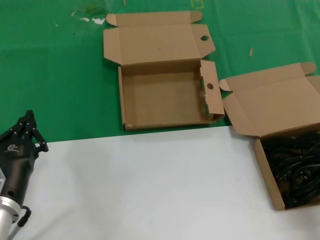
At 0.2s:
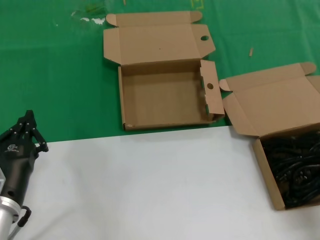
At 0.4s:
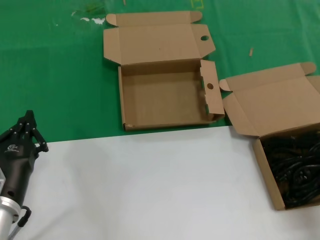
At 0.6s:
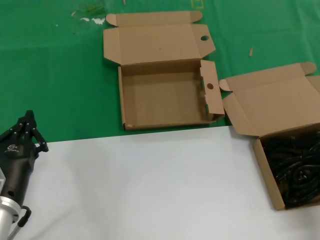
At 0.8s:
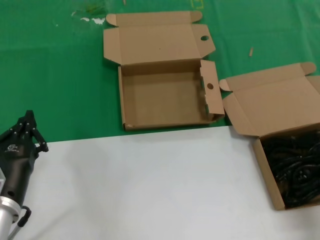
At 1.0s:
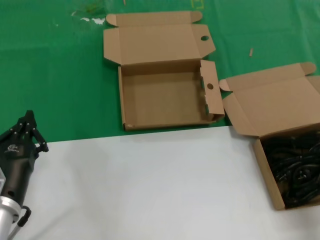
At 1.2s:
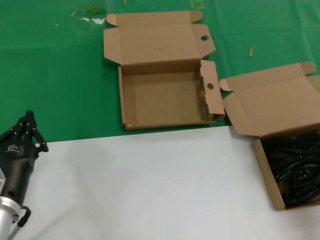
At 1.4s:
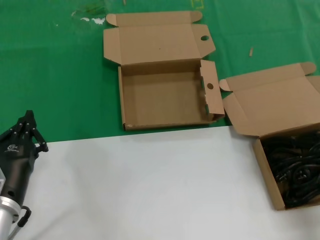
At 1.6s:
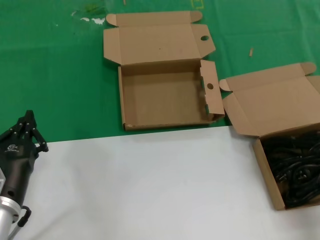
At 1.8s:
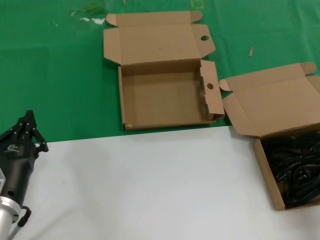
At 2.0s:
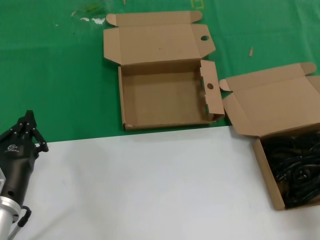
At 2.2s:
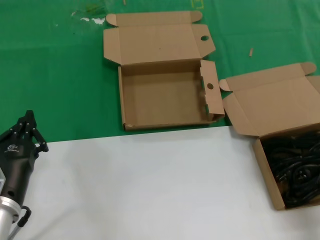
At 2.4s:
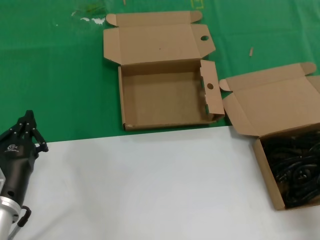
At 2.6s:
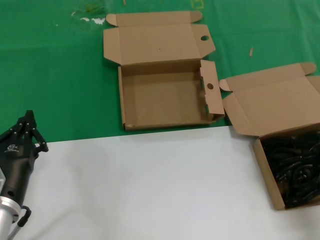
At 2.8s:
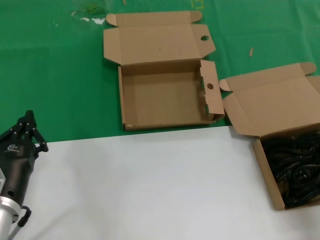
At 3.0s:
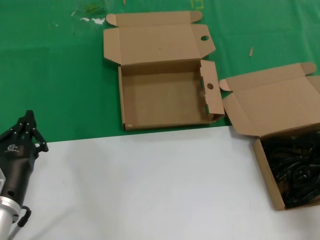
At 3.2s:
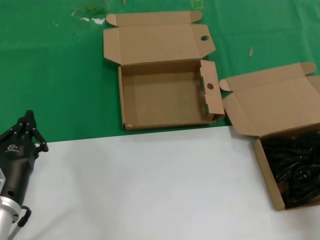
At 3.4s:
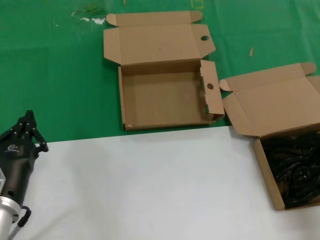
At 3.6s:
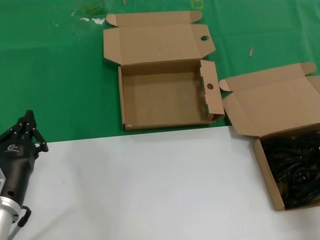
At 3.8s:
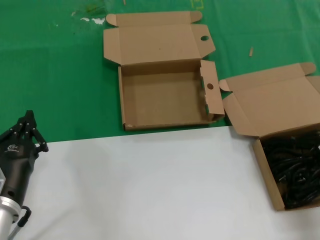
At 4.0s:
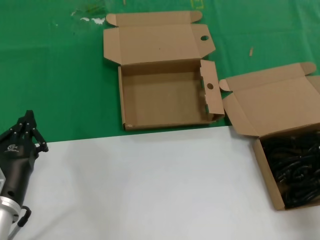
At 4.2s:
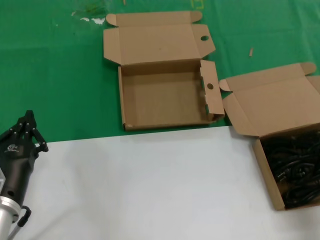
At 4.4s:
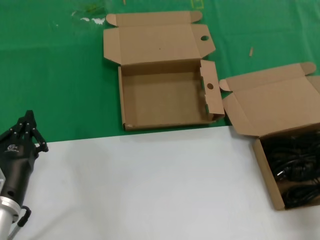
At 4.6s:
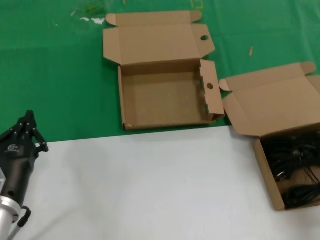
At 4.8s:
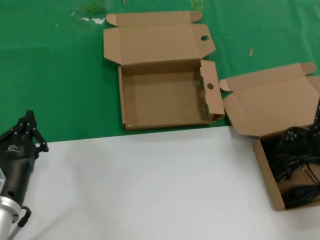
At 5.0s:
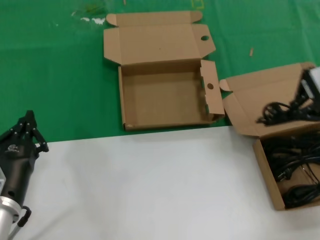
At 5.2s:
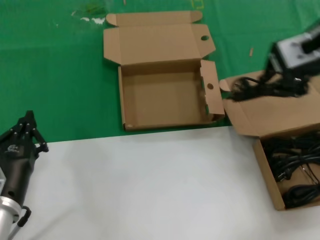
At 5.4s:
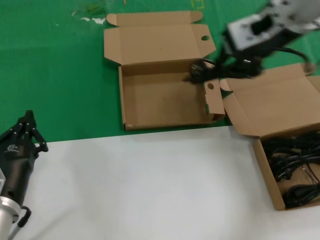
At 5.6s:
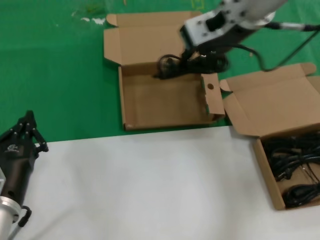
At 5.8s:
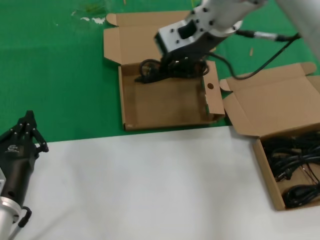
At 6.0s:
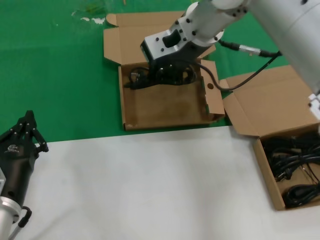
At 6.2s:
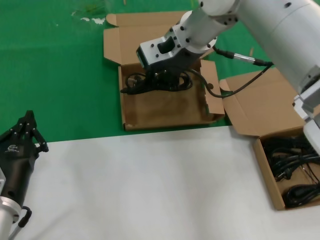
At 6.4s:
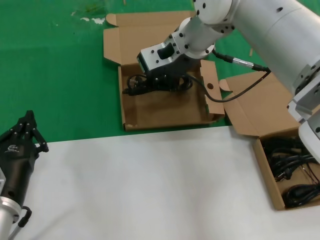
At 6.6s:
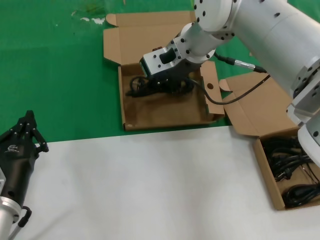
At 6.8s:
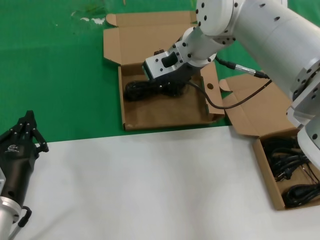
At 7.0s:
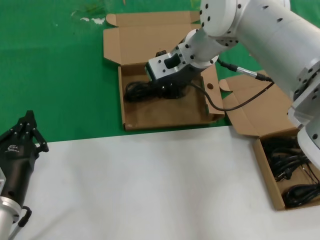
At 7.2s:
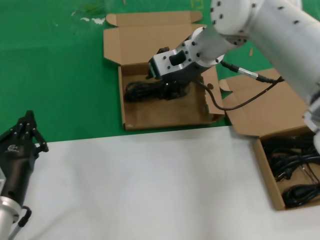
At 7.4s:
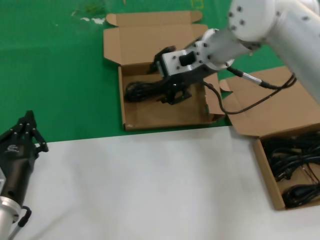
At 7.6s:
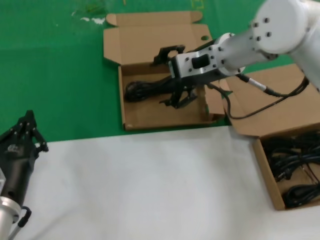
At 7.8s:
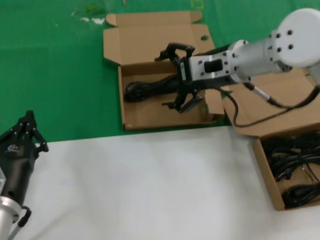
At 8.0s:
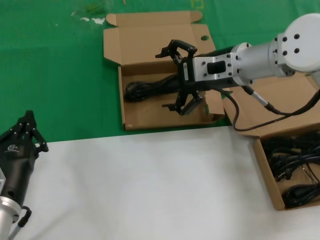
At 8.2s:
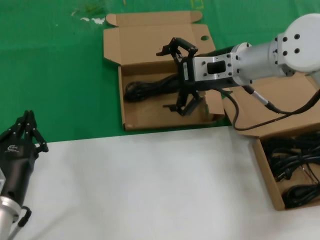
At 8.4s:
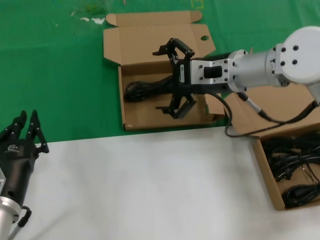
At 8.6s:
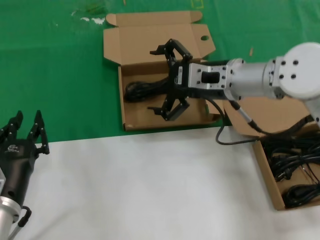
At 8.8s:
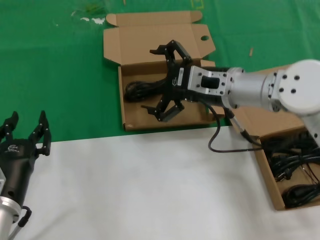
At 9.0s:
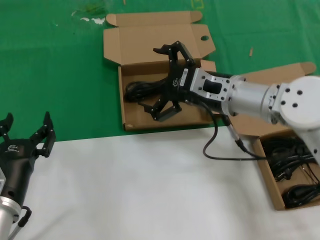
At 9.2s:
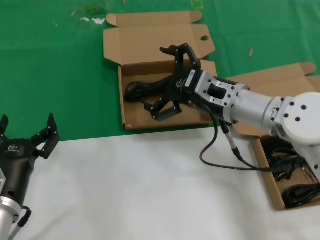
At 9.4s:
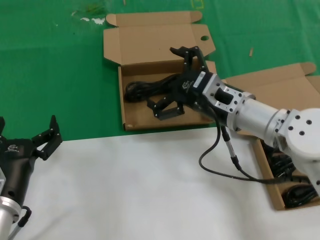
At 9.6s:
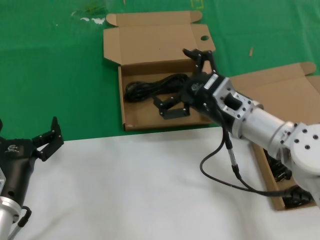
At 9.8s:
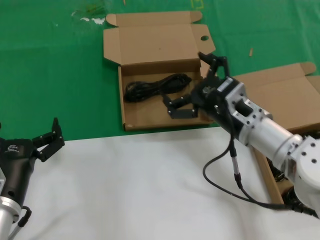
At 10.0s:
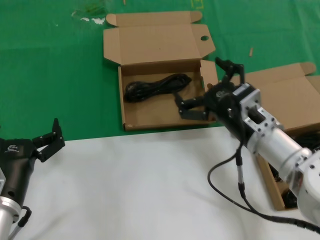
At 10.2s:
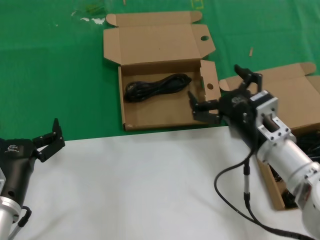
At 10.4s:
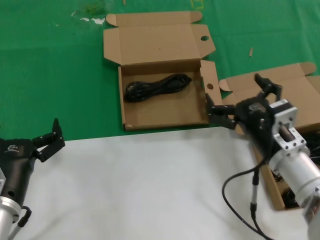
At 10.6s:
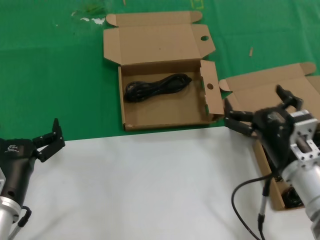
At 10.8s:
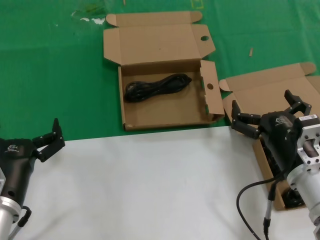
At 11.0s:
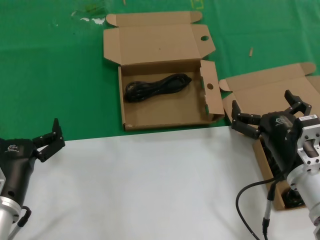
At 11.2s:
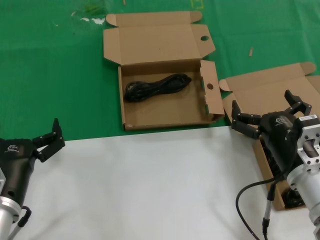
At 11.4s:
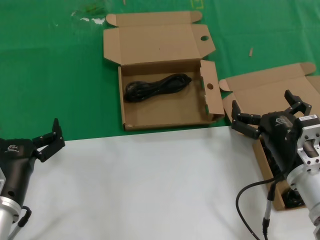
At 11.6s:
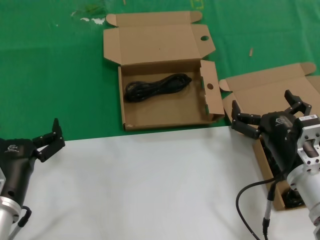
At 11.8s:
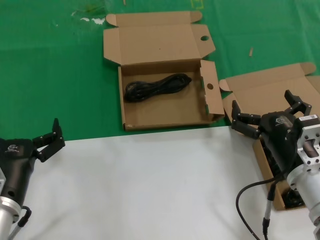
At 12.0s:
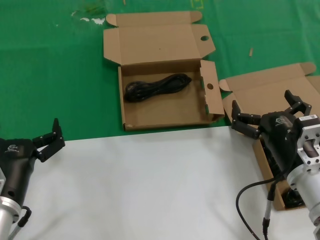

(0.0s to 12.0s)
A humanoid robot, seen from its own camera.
Task of the whole recording: take the parts from the box containing them and put them into an empty box.
Step, 3.4s - 7.4s: Place the data cable in the another box.
4.4s - 6.0s: The right hand travels to the left and forward by some 30 cm.
6.0s - 7.6s: The right hand shifts some 10 cm downward and to the right.
7.6s - 9.0s: The right hand heads downward and backward, covering roughly 10 cm.
9.0s - 10.4s: The right hand is displaced backward, downward and to the right by about 15 cm.
10.4s - 12.0s: The hands move only a little.

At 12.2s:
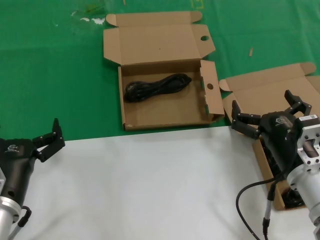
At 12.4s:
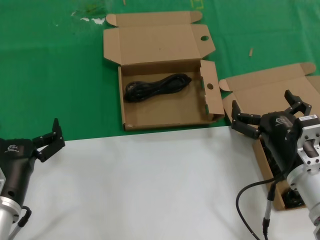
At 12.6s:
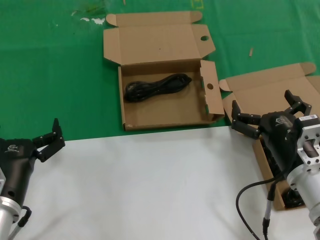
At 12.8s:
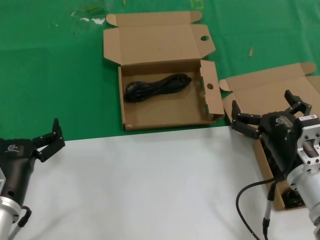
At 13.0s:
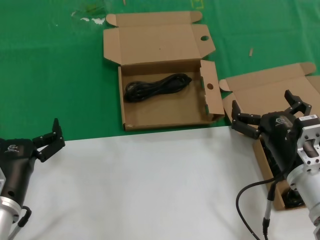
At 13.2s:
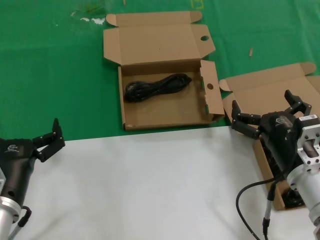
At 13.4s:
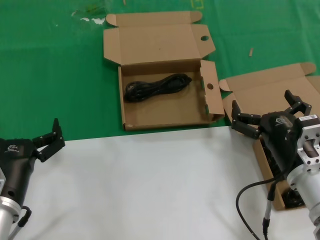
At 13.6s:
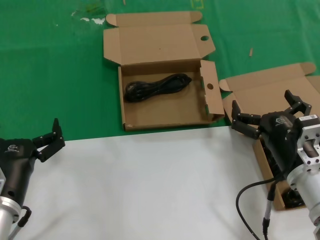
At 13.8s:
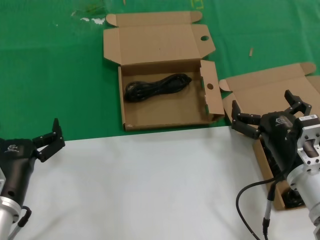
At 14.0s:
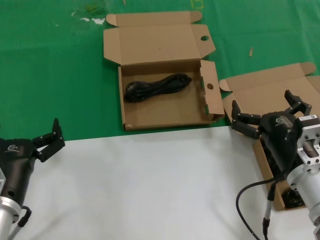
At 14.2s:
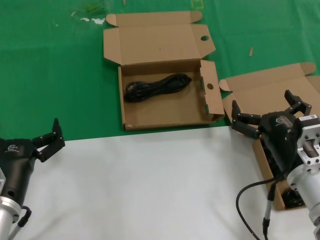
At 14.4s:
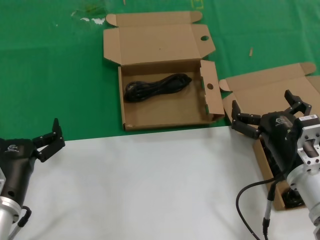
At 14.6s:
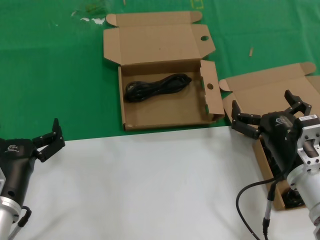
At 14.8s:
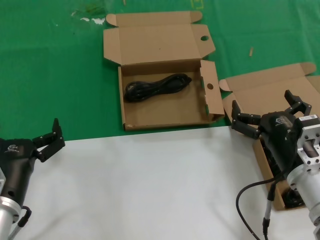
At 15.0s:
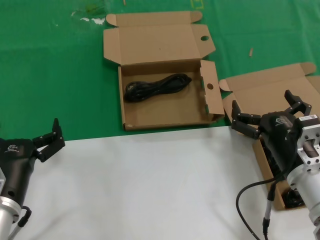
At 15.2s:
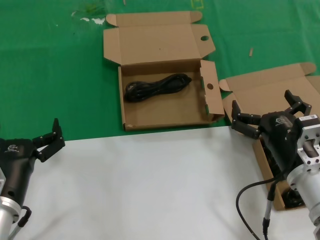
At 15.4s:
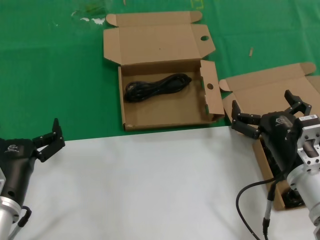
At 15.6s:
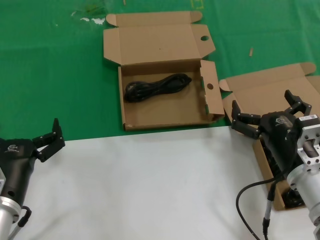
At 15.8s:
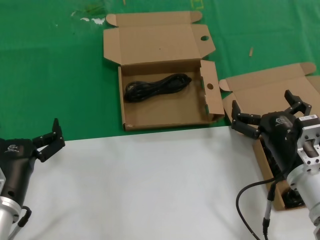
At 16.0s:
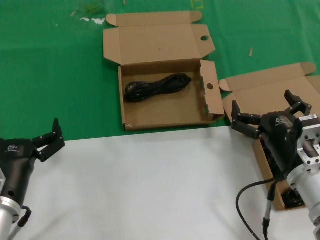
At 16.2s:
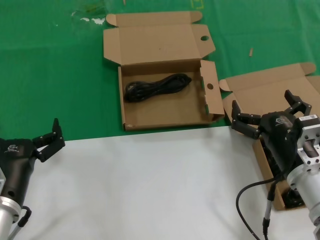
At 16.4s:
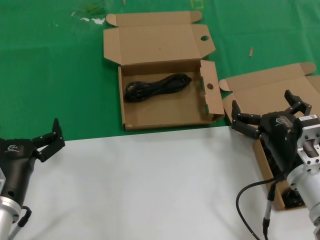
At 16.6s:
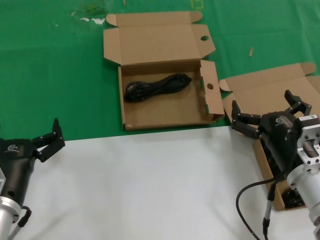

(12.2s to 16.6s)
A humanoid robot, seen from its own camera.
Task of the whole recording: take the parts from the box containing them and put them into an empty box.
12.2s - 16.6s: The two hands keep their place.

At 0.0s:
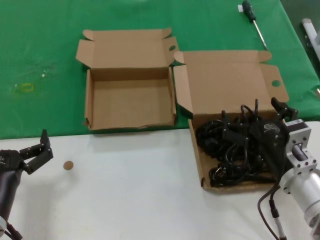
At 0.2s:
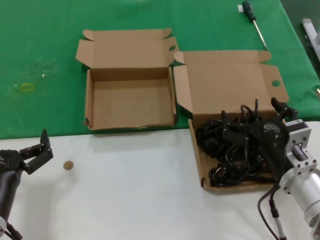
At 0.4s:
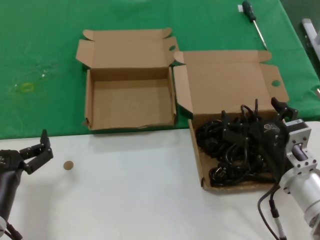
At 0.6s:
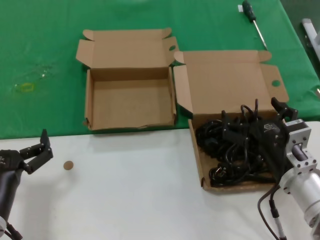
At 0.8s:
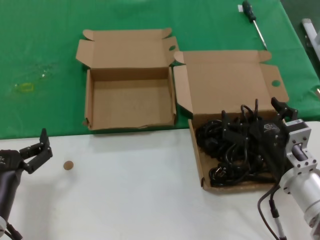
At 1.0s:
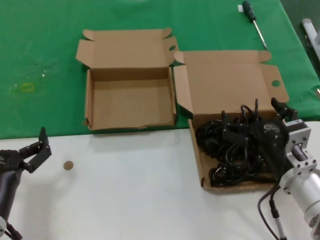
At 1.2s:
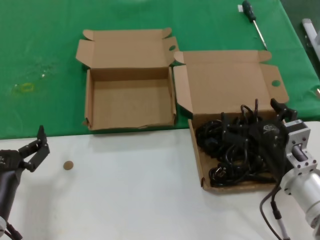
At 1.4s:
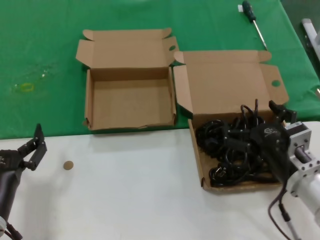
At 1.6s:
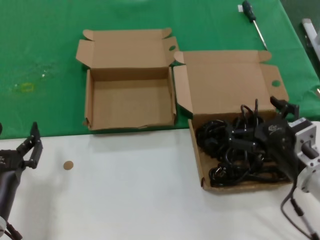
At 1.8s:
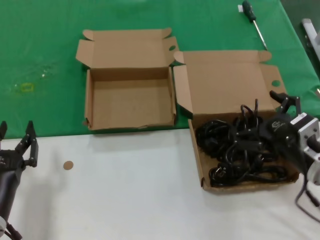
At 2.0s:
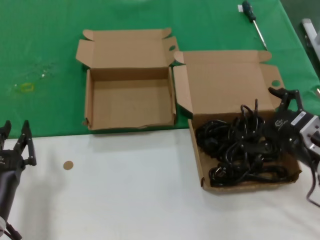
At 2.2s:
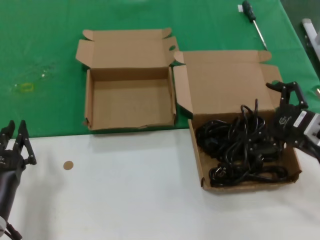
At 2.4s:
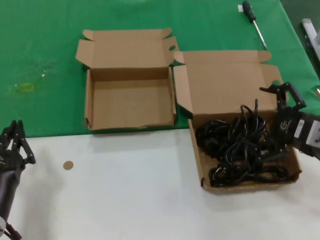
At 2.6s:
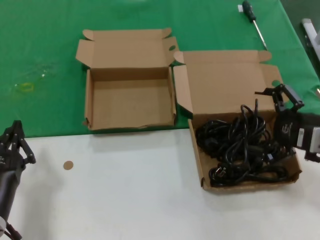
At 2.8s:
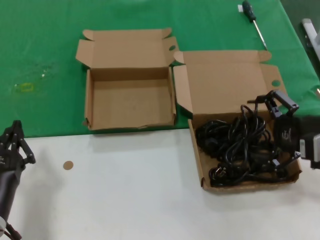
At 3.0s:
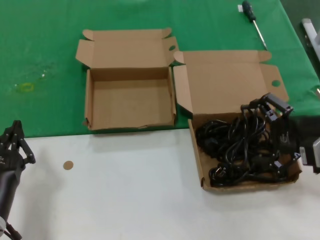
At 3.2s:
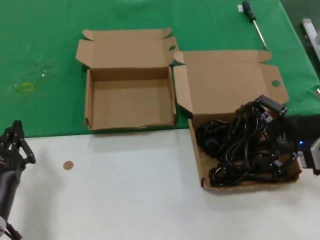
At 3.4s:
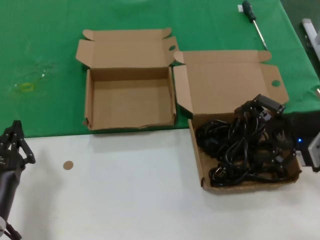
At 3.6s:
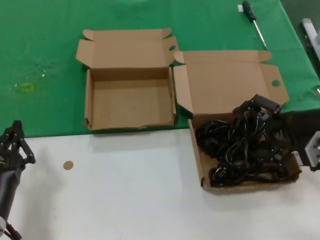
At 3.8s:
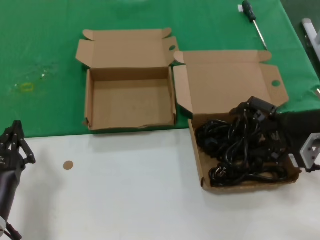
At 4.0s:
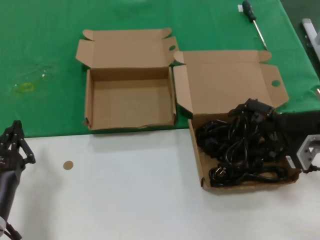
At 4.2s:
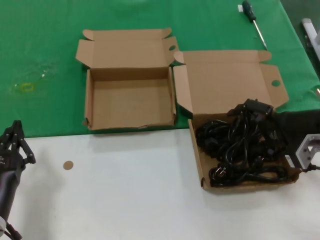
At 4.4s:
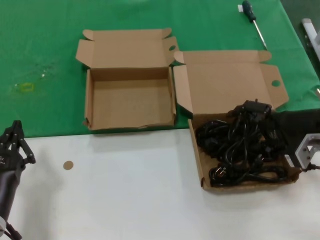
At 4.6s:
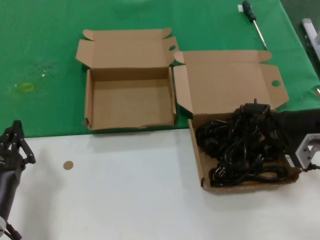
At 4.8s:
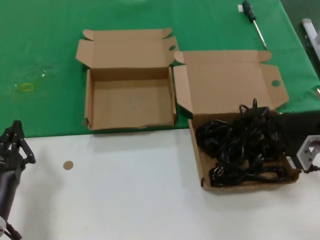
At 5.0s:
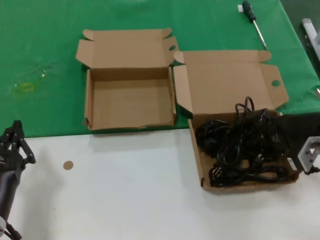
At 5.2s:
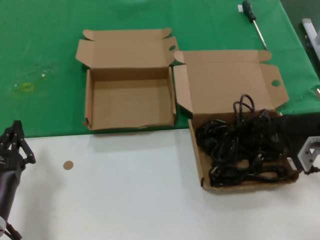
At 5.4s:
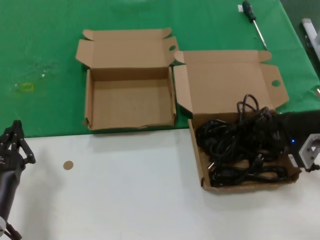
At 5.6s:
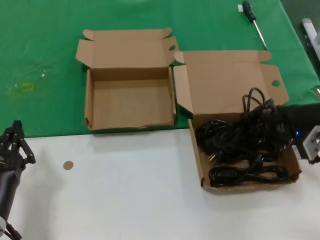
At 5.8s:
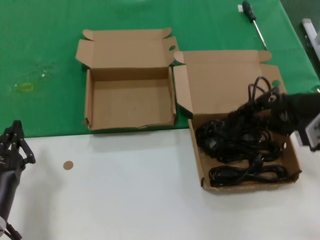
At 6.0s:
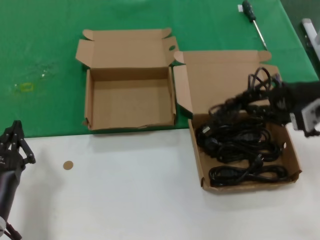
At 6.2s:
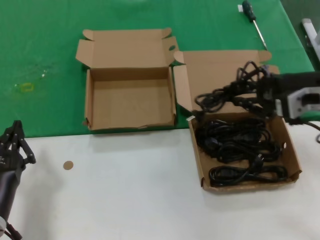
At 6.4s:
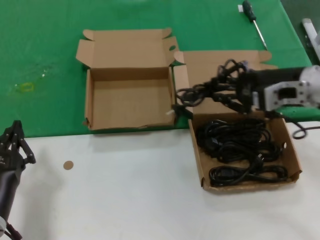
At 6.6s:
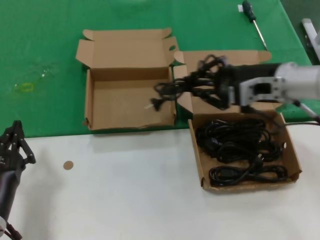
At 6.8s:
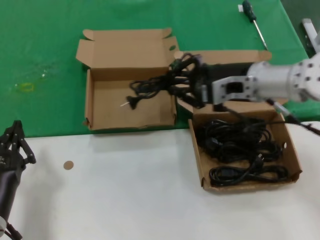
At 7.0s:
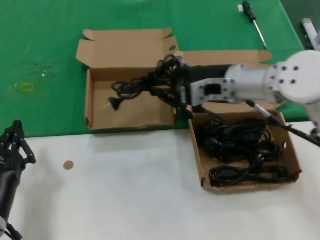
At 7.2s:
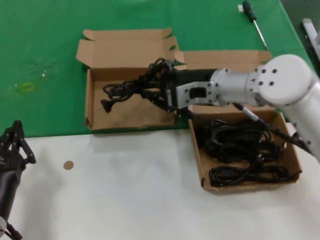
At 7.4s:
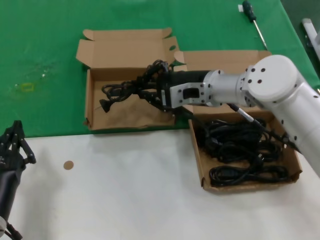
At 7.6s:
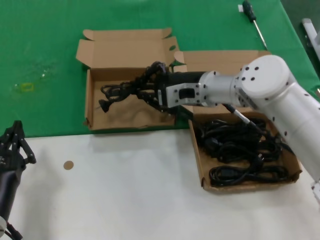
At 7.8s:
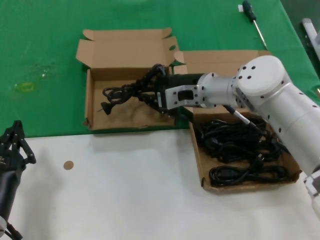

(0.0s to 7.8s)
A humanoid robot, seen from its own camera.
Task of the whole recording: take the parts from the box containing them and put them into an empty box.
Step, 0.0s - 5.2s: Grasp the data cable.
0.0s - 1.6s: The hands stay close to where they were, moving slightly.
1.6s - 3.2s: The right hand travels upward, to the right and forward by roughly 15 cm.
3.2s - 4.6s: The hands stay close to where they were, moving slightly.
4.6s - 6.2s: The right hand travels upward by approximately 5 cm.
6.2s - 7.8s: The right hand moves to the left and forward, some 20 cm.
